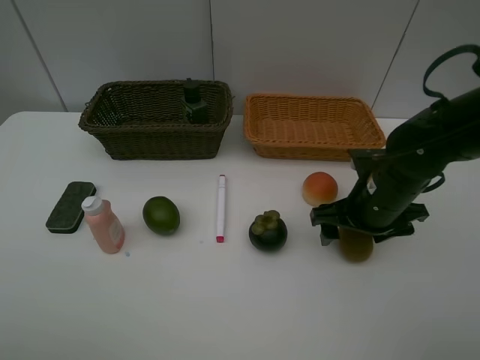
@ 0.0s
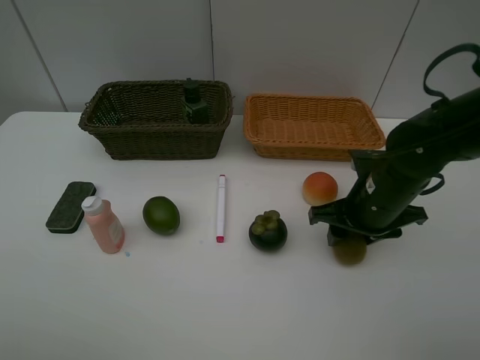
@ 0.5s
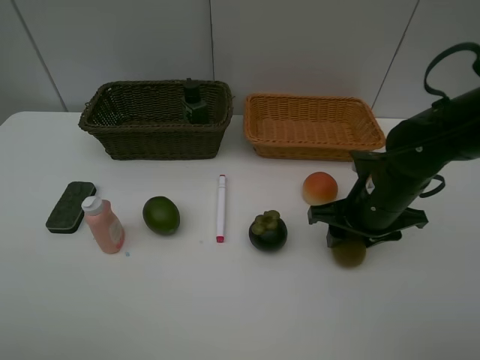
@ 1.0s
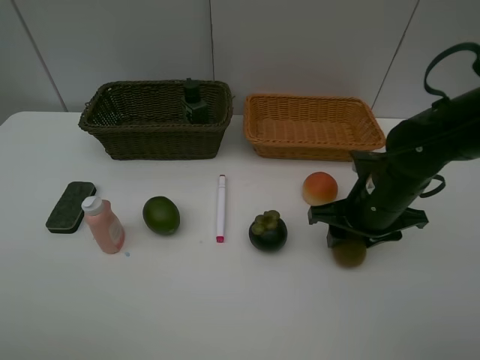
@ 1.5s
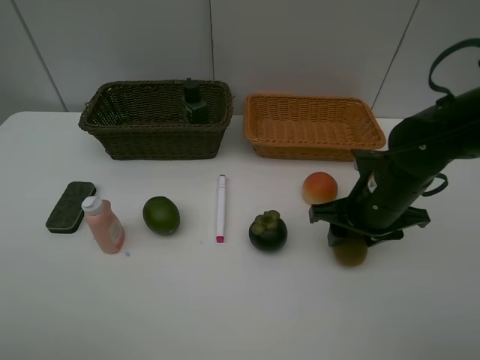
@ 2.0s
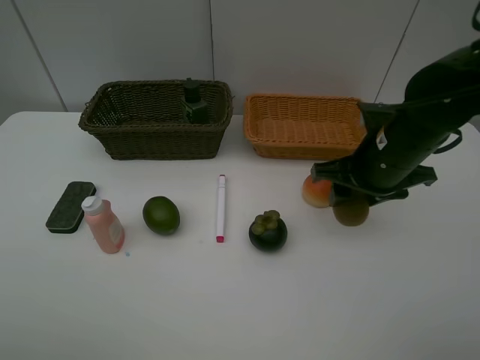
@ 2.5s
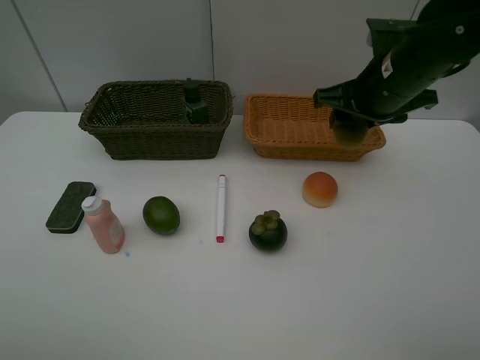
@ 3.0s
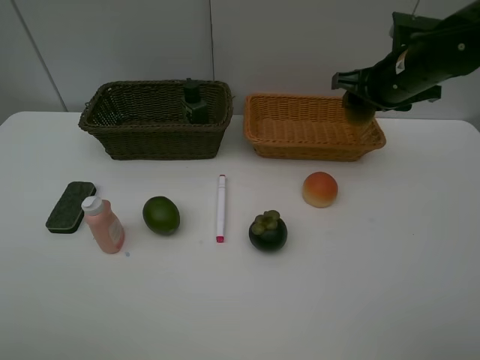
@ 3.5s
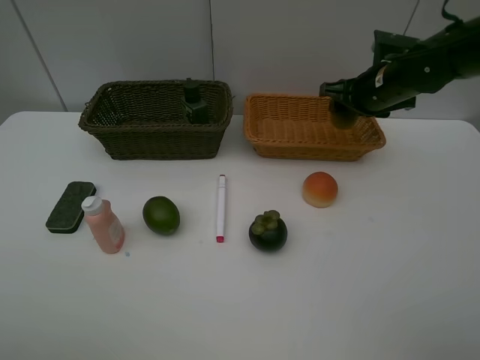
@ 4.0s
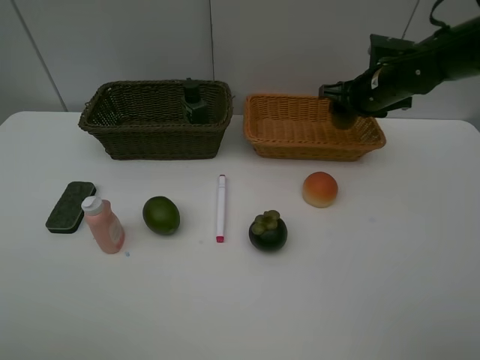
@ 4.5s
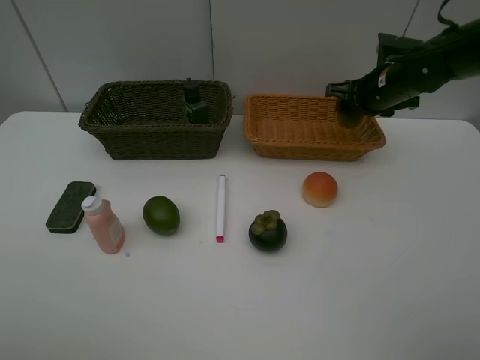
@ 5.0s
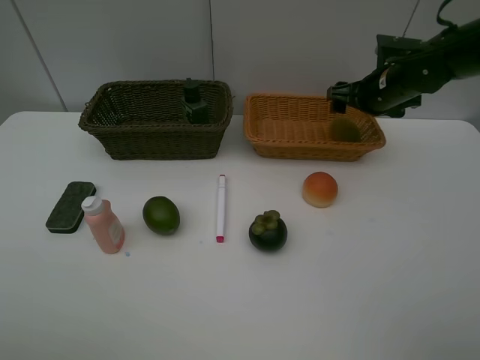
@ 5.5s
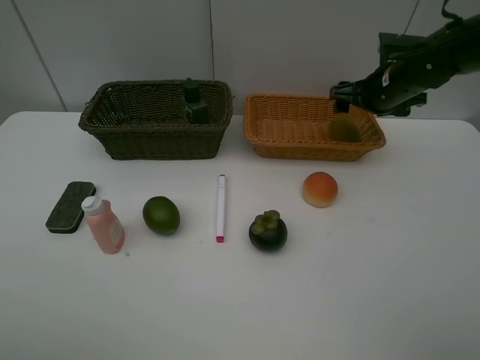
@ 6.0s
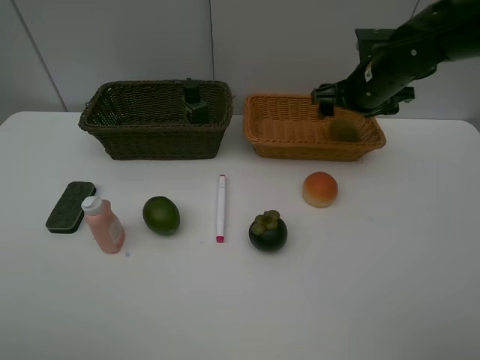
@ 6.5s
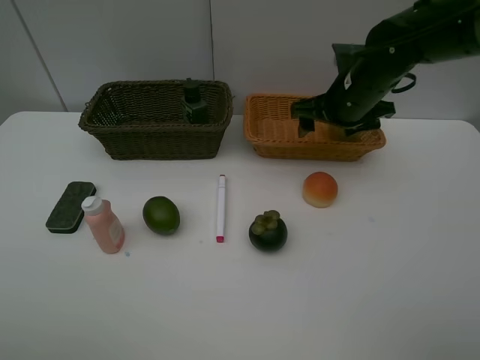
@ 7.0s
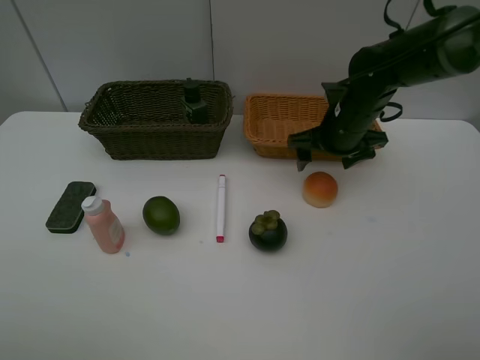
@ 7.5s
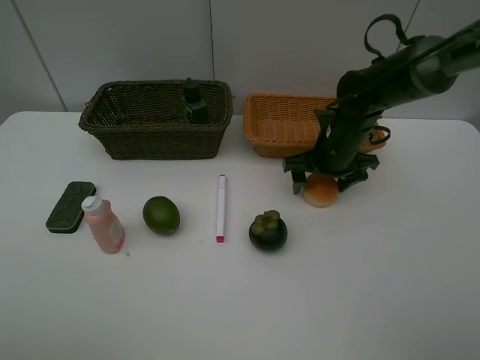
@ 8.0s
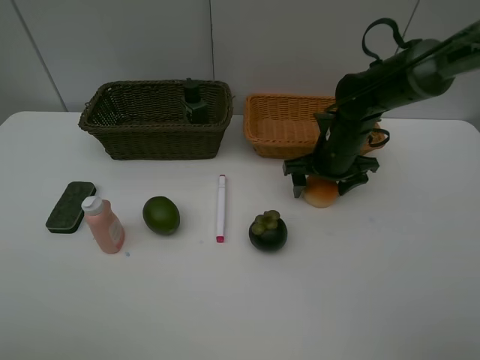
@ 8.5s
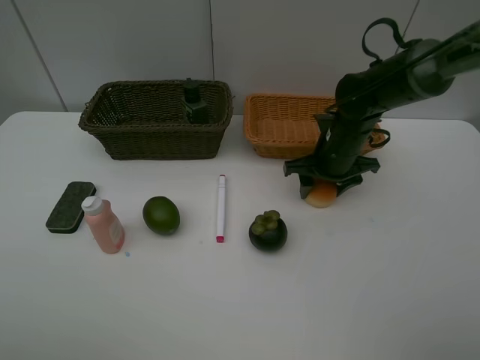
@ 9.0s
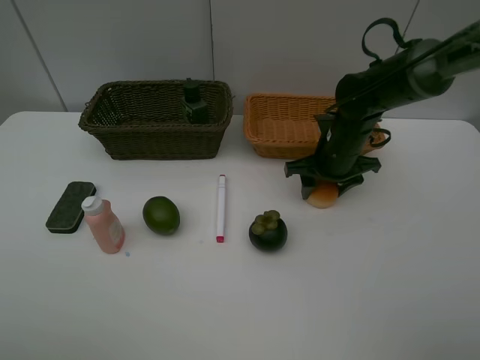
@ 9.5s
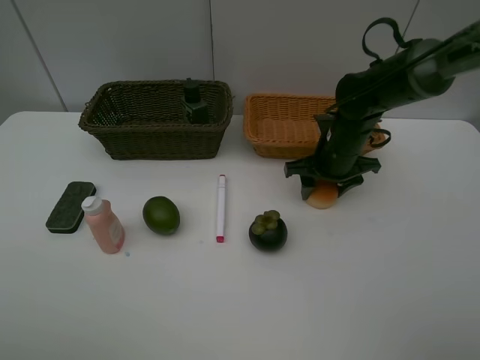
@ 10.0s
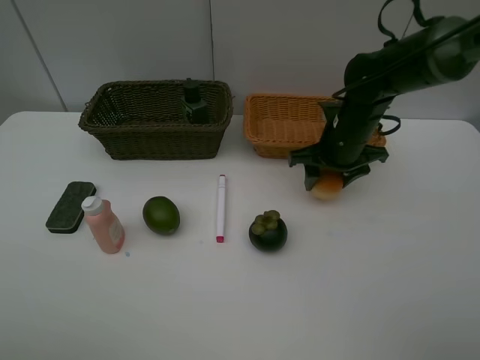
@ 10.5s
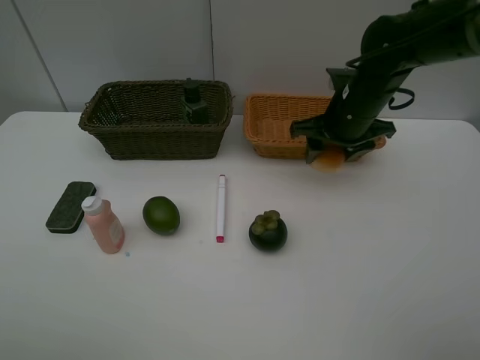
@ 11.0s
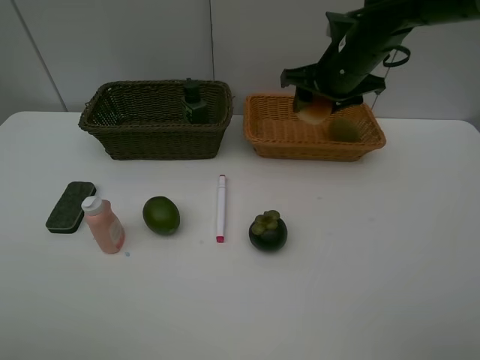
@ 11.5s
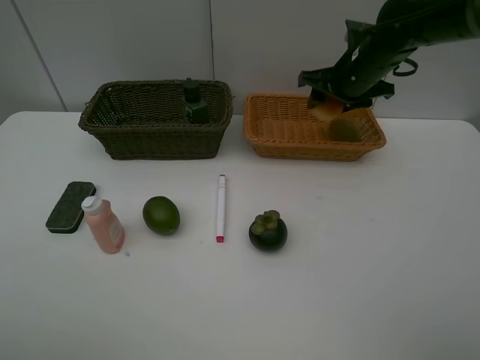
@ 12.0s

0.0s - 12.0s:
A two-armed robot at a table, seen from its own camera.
Task of the whole recording: Place multiple objects separately in different baskets.
Step, 0.0s - 2.5s: Pick up kiwi with right gripper.
Step, 3.0s - 5.5s: Place the kiwi in the light basket with right gripper.
Step, 6.0s - 10.5s: Pick up egg yolk pastry with right gripper.
0.0s - 2.0s: The right gripper closes its fingers.
2.0s - 4.0s: The right gripper shifts roughly 15 cm forward.
4.0s - 6.0s: The right gripper opens up.
6.0s - 8.0s: The right gripper is displaced to the left and downward by roughly 10 cm.
8.0s - 10.0s: Both grippers stay put.
10.0s - 12.0s: The right gripper heads upward and forward, covering some 10 cm.

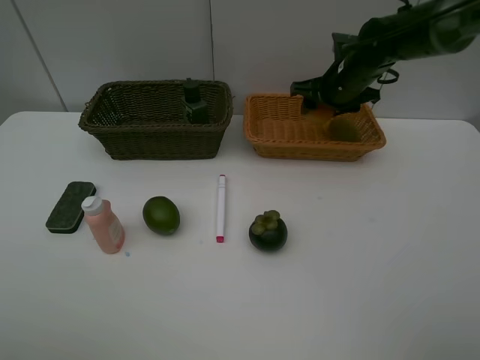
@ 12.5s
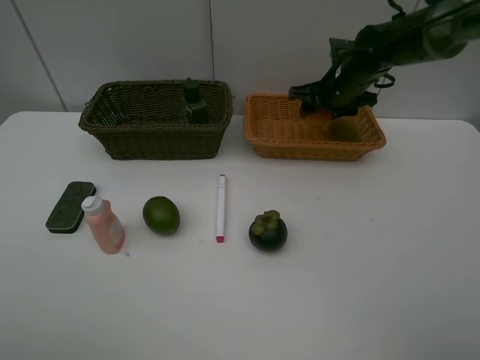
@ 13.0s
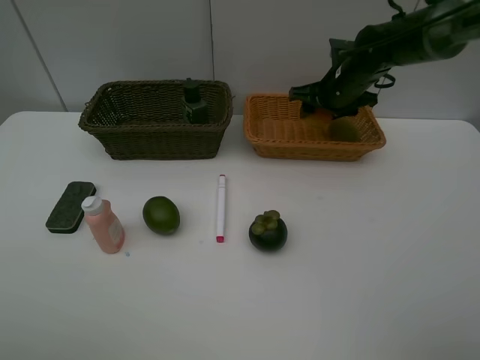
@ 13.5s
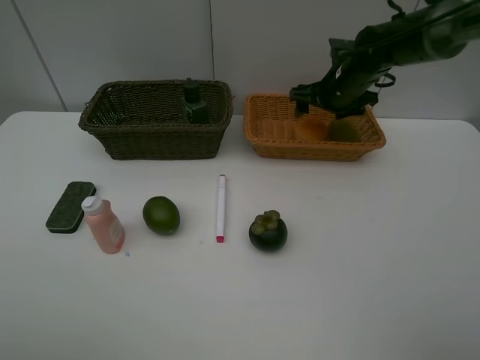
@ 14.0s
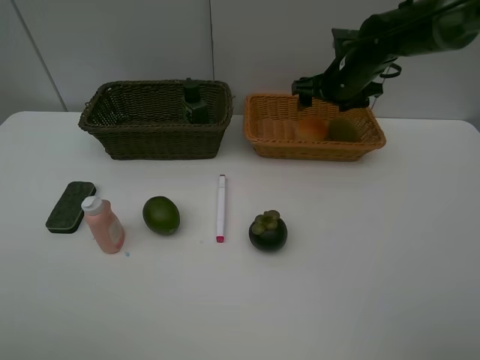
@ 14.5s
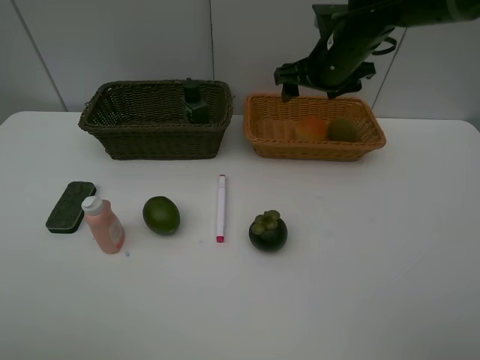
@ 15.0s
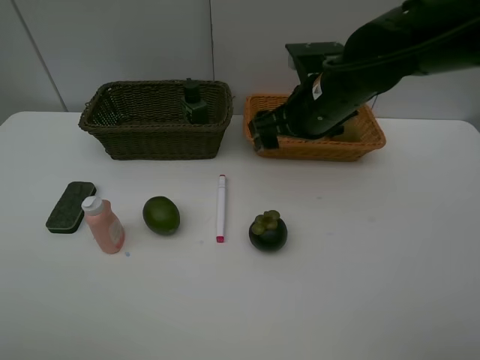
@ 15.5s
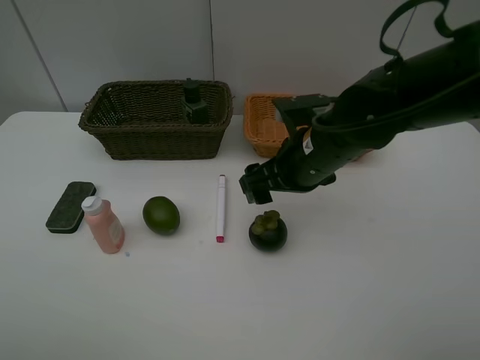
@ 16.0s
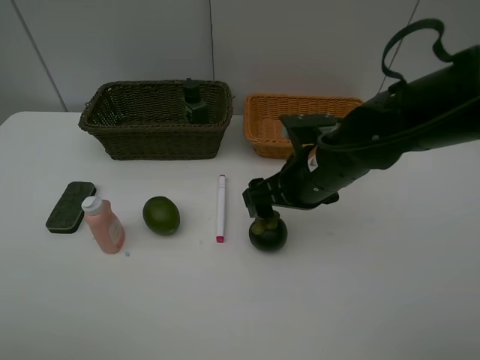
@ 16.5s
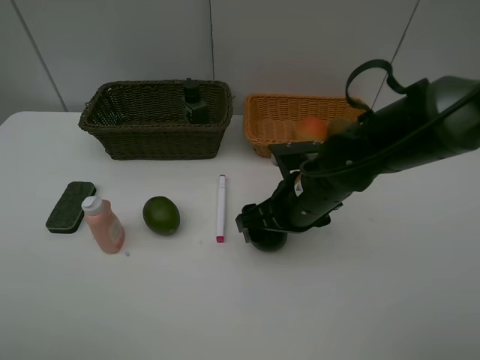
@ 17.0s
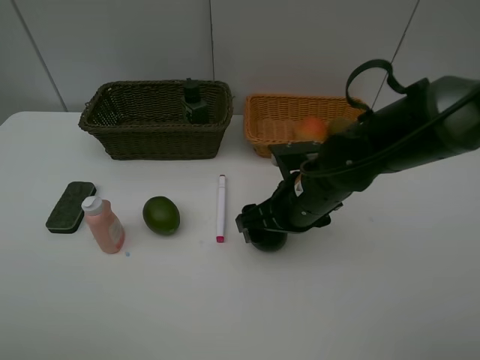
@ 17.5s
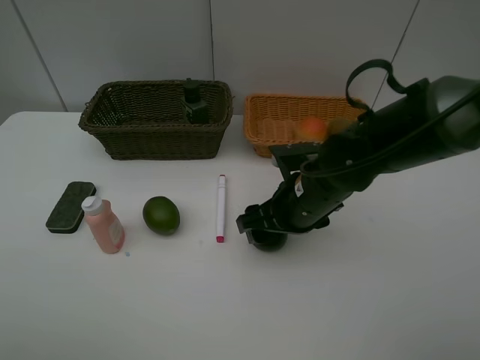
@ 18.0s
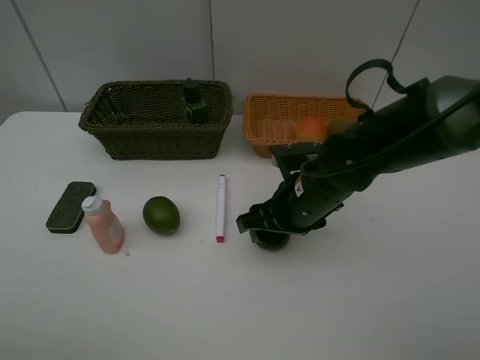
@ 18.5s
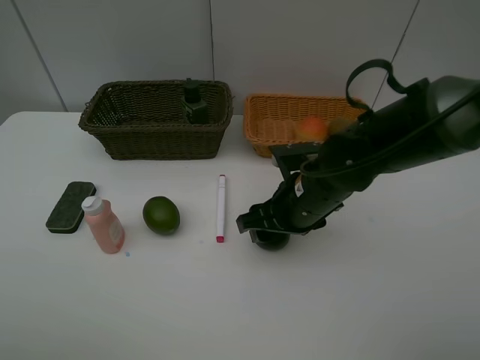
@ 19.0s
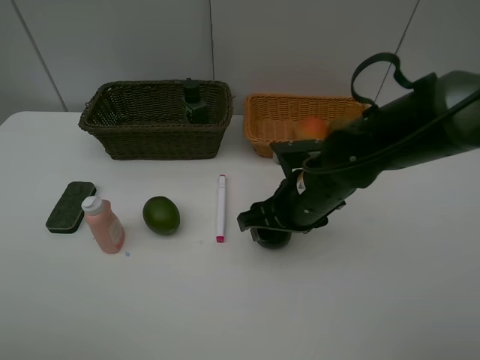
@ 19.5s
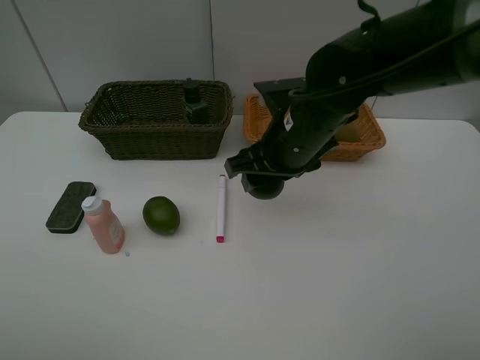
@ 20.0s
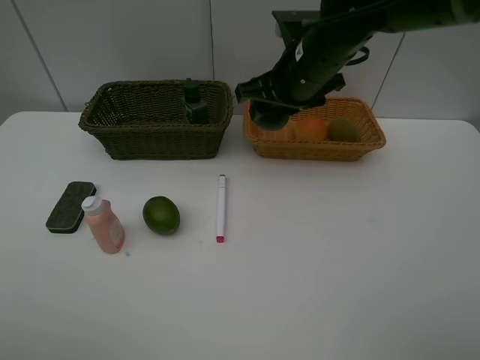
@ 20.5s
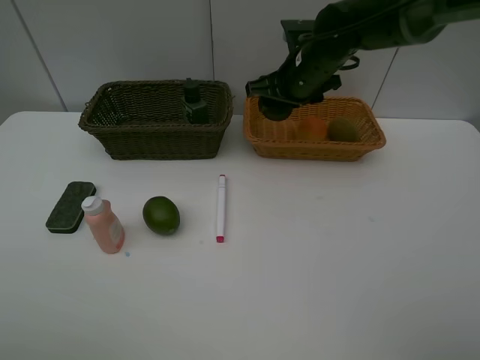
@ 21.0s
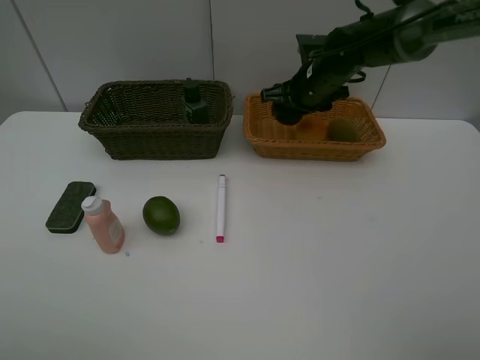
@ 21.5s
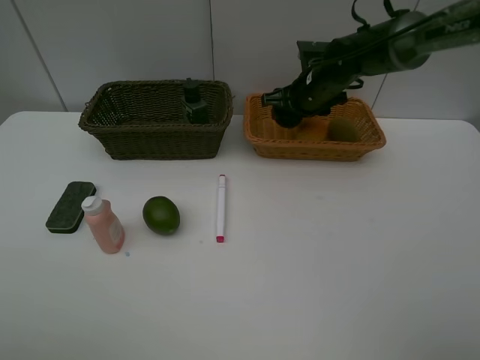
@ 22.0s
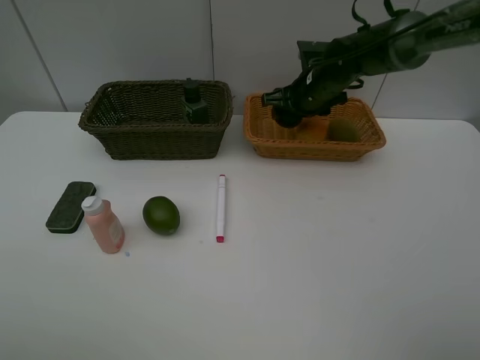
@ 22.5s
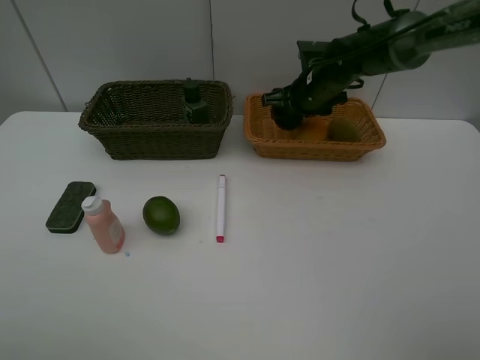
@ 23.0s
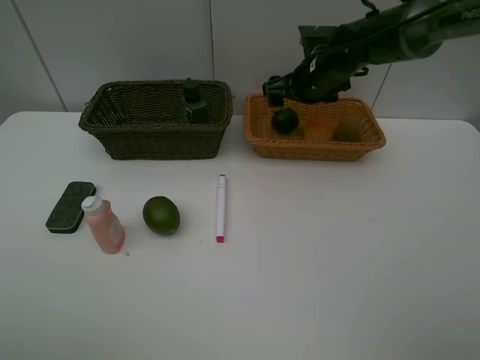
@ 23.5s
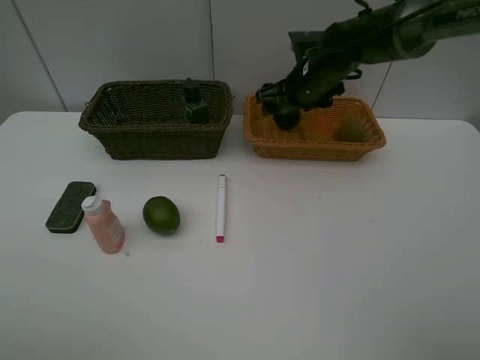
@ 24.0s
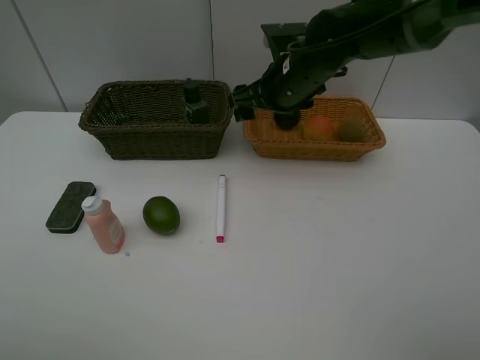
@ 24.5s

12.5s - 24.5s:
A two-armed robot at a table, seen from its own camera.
Task of the whole recording: Place multiple objects separately in different baskets.
Step, 12.5s - 14.5s: Place the egg yolk pastry in the light basket with right gripper.
Step, 15.0s - 19.5s: Pick up the mangosteen with right gripper.
Step, 20.0s - 24.0s: Place the mangosteen in the light basket with right gripper.
12.5s - 14.5s: Both grippers stay put.
14.5s - 16.5s: The right gripper moves backward and to the left, about 20 cm.
16.5s - 18.5s: There are only small adjustments of the grippers.
18.5s - 20.5s: The right gripper is displaced upward and forward by some 15 cm.
20.5s - 22.5s: The right gripper is displaced forward and downward by about 10 cm.
22.5s - 24.5s: The right gripper moves backward and to the left, approximately 10 cm.

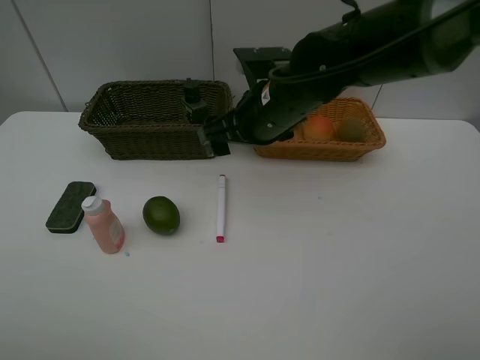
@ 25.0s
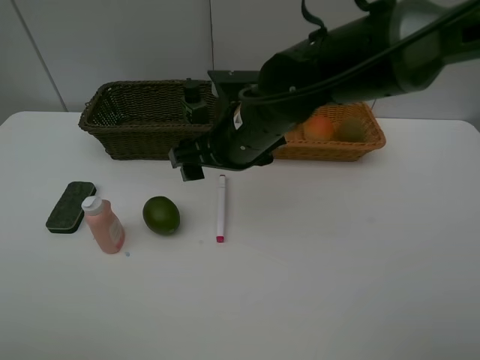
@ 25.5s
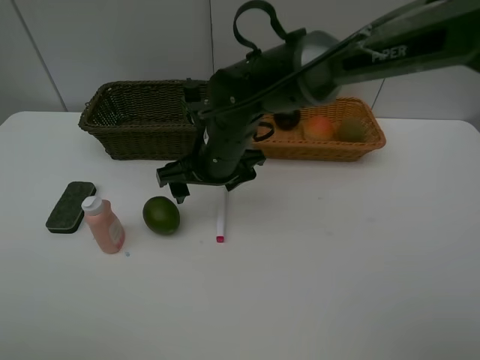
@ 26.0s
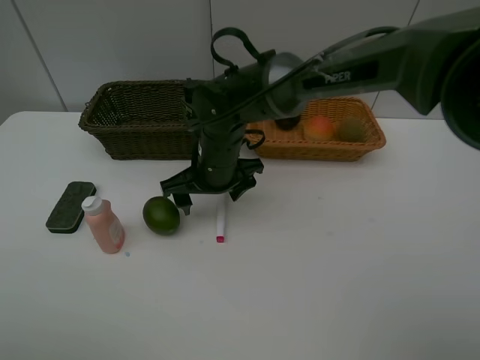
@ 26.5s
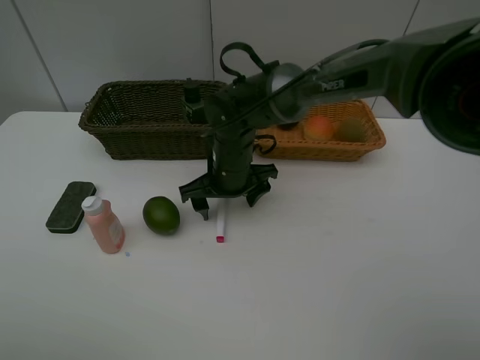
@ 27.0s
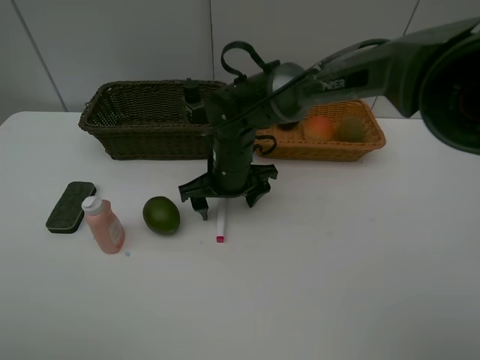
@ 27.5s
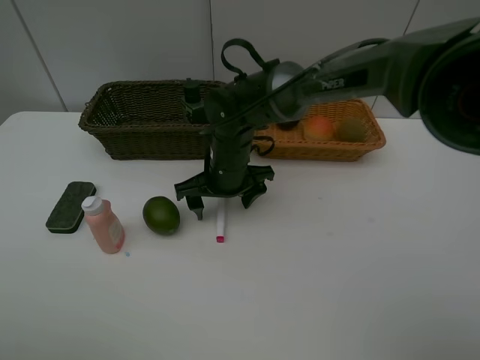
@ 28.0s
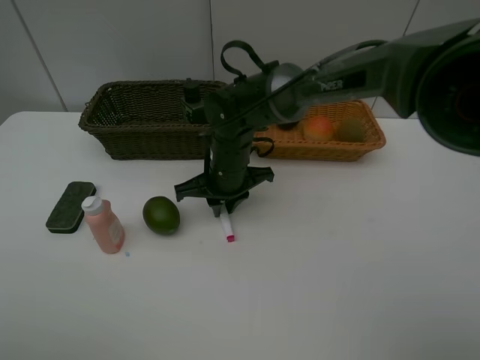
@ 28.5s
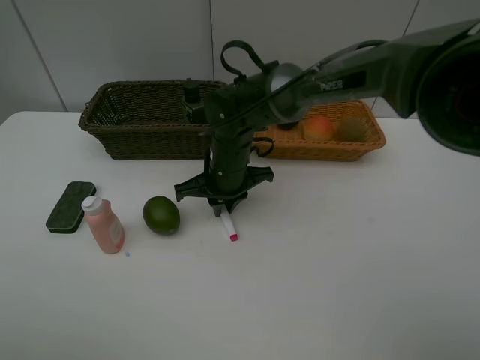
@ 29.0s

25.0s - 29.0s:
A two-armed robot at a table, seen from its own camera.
Task of the whole recording: Place multiple objects separately in different baskets.
25.0s - 27.0s: The right gripper travels downward by roughly 10 cm.
27.0s - 29.0s: The right gripper closes.
